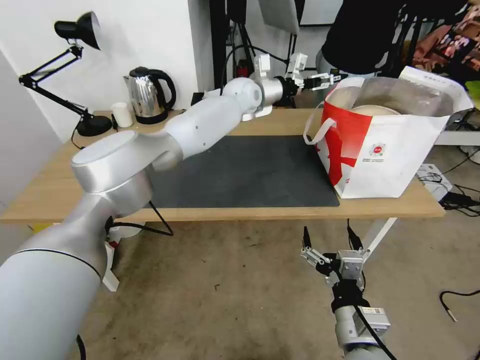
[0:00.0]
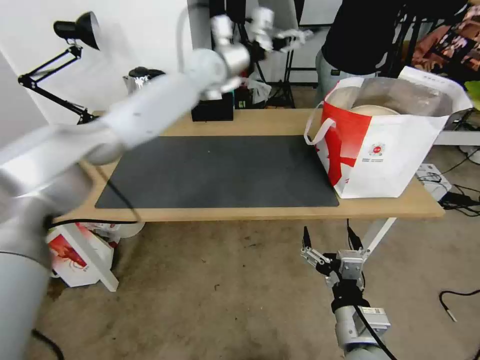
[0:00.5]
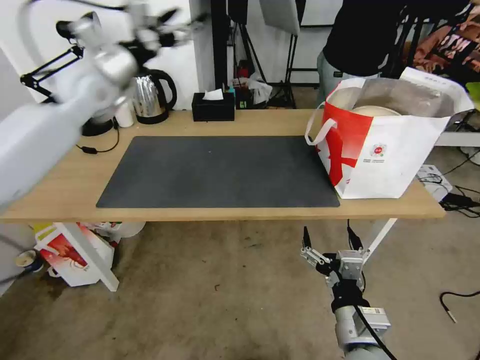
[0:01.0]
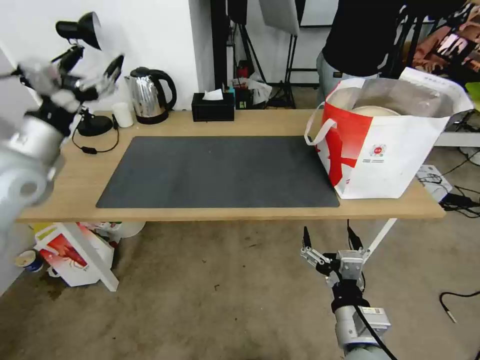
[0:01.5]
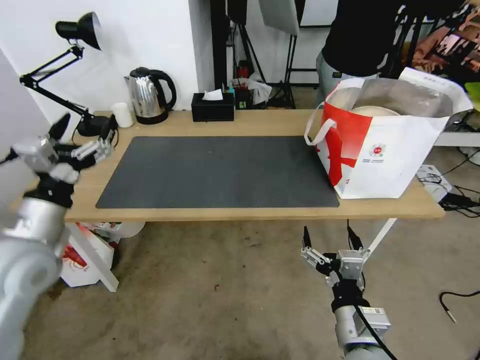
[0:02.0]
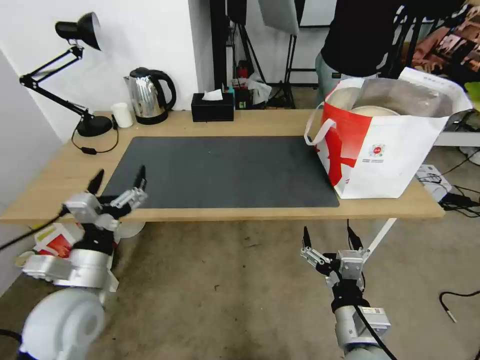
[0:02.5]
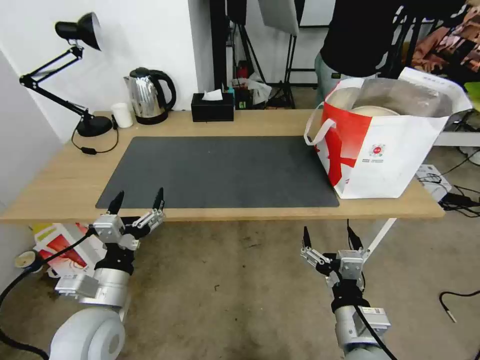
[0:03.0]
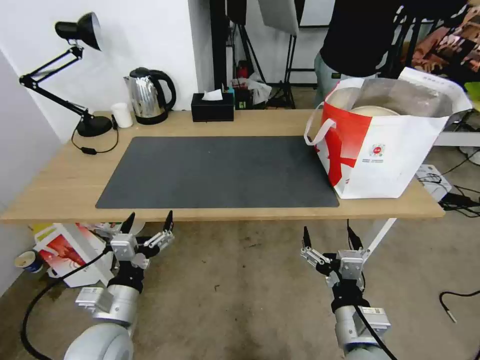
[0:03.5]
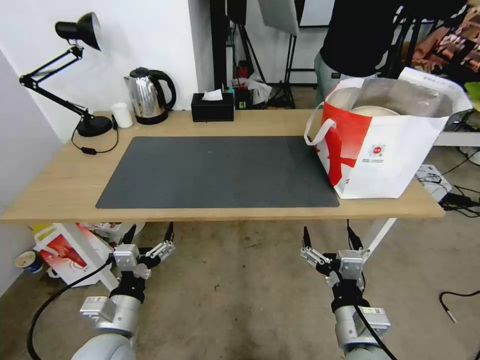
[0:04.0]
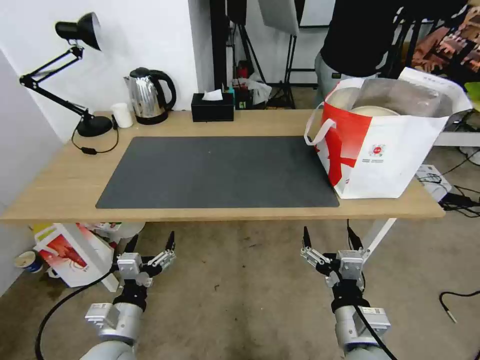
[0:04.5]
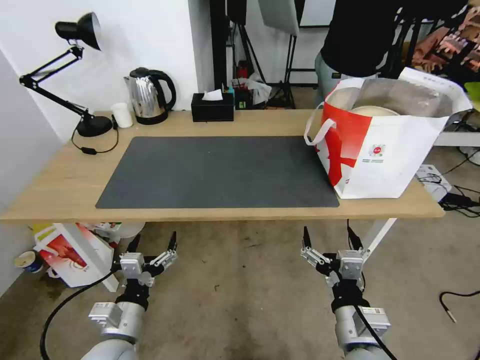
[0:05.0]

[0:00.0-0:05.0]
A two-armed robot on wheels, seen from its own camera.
Task of the whole recording: Pick up the trash from the table and place it into the takeout bag.
0:00.0 to 0:02.5: The left gripper travels backward and to the left by approximately 50 cm.
0:02.5 to 0:05.0: The left gripper heads downward and backward, covering approximately 15 cm.
